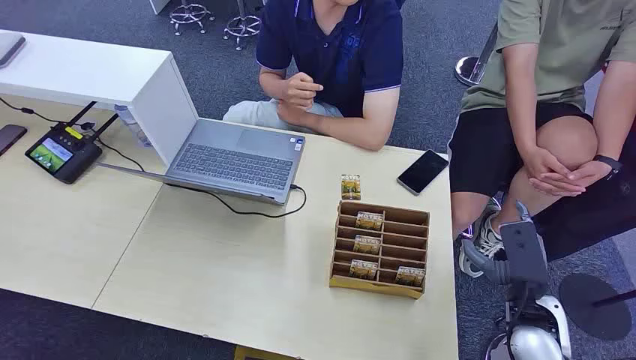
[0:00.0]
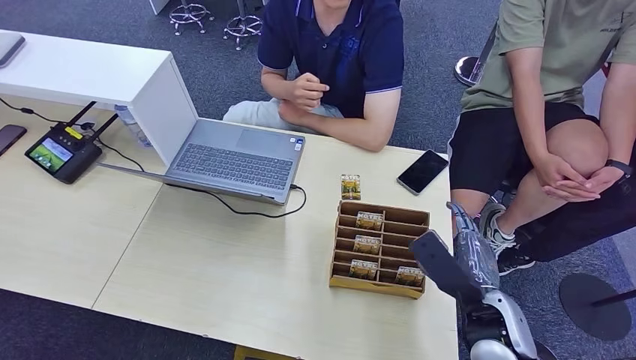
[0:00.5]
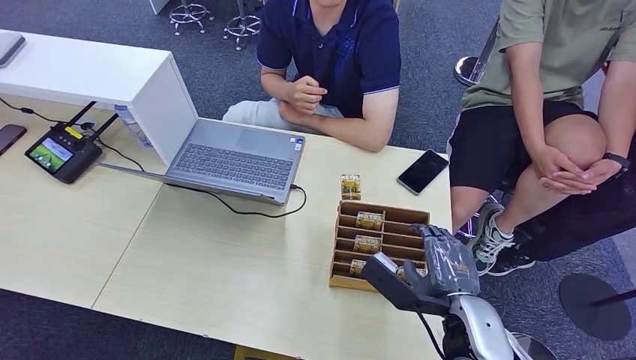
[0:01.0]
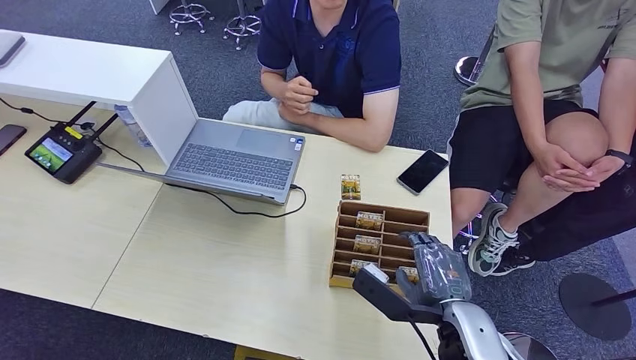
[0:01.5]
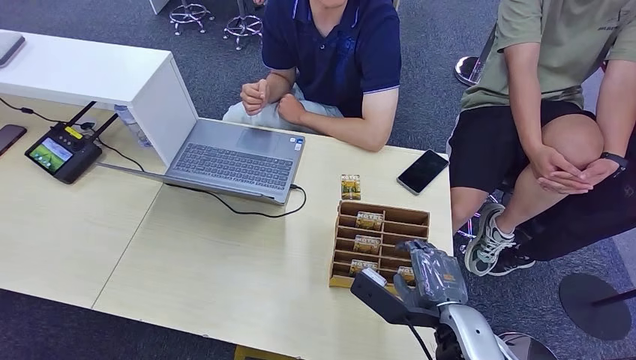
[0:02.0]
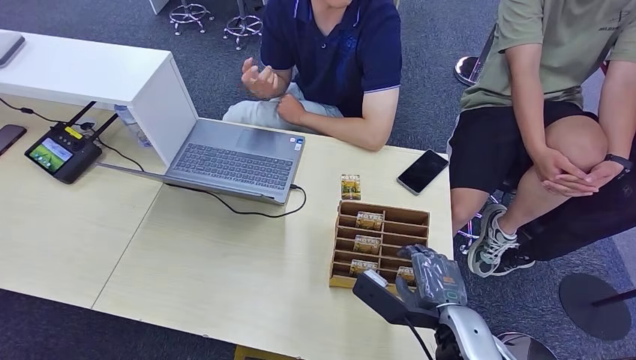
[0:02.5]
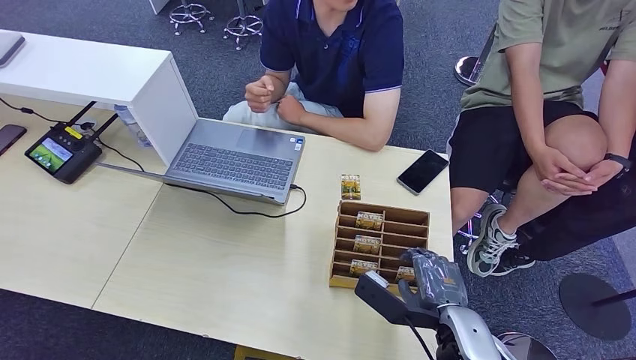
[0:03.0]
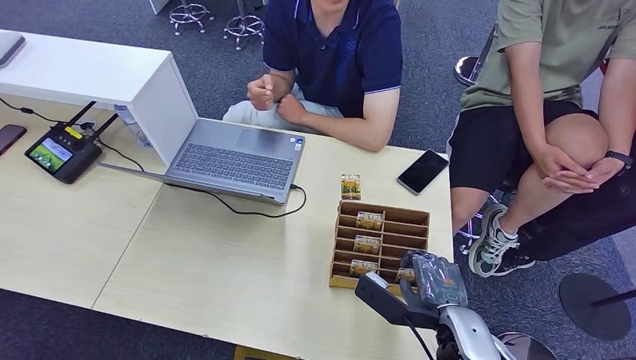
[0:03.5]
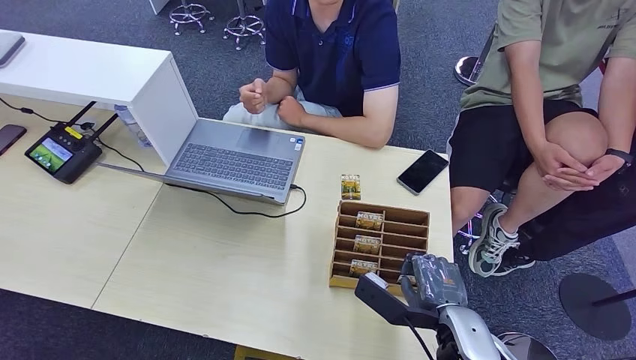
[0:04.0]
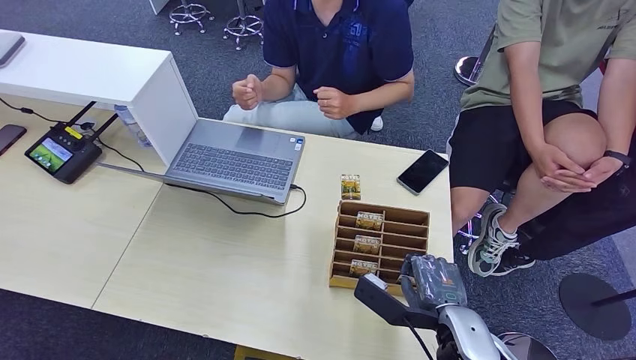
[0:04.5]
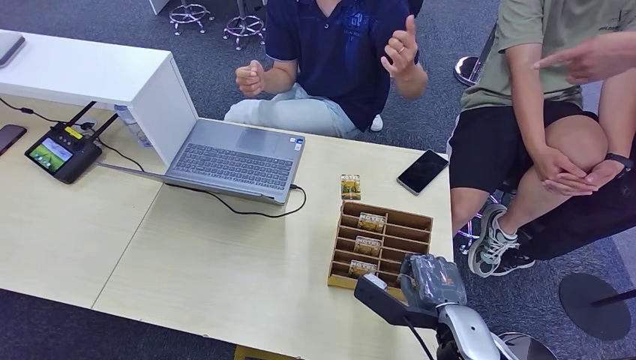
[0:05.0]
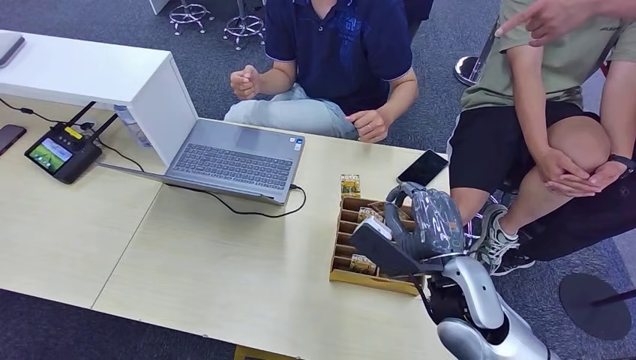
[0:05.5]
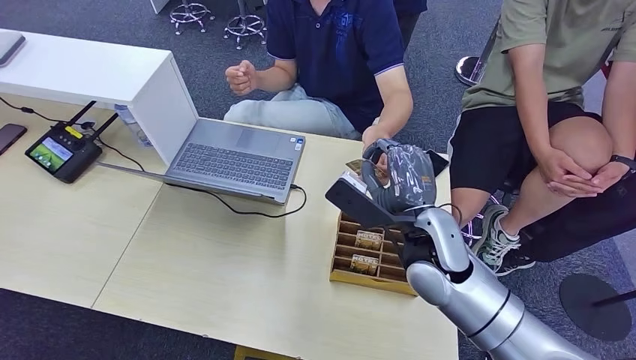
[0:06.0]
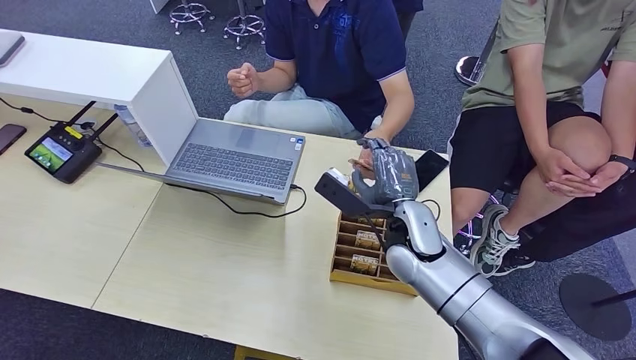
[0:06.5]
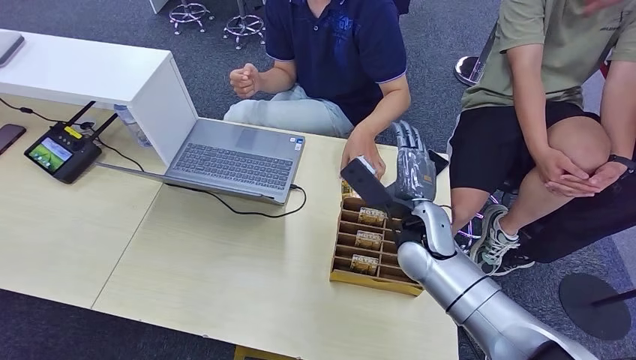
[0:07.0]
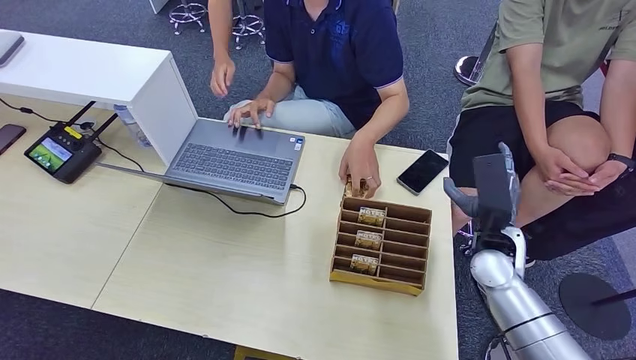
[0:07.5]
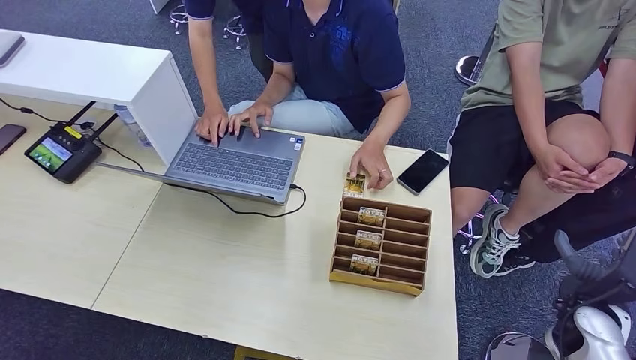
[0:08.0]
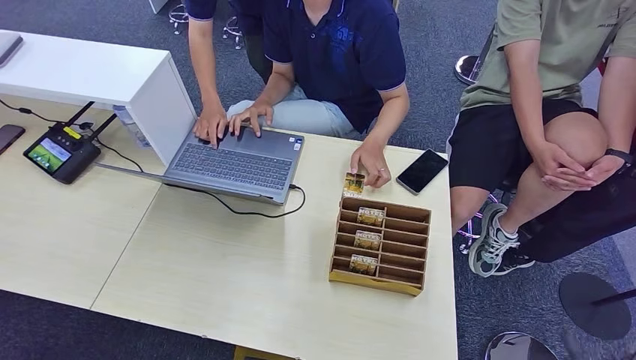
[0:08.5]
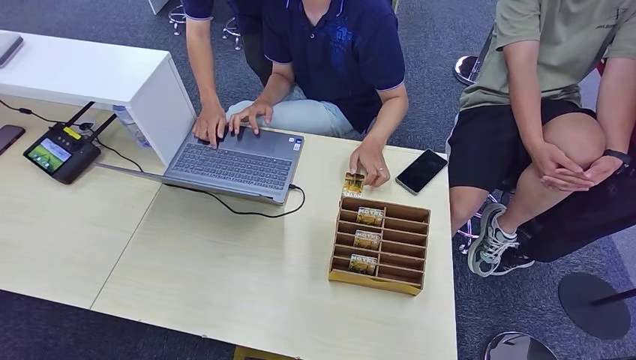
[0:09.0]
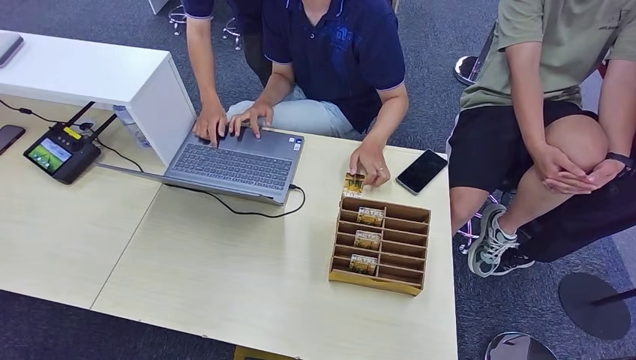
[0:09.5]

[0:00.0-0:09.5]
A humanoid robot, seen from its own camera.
Step, 0:00.0 to 0:05.0: Pick up the room card from the card holder.
Step, 0:05.5 to 0:09.0: Hand the room card to the target.
0:02.0 to 0:04.0: Both hands stay about where they are.
0:04.0 to 0:05.5: The right hand moves upward, some 10 cm.
0:05.5 to 0:07.5: The right hand goes approximately 15 cm forward and to the right.
0:07.5 to 0:09.5: The right hand travels backward and downward by some 40 cm.
